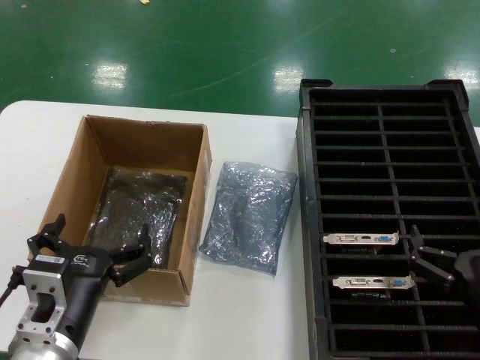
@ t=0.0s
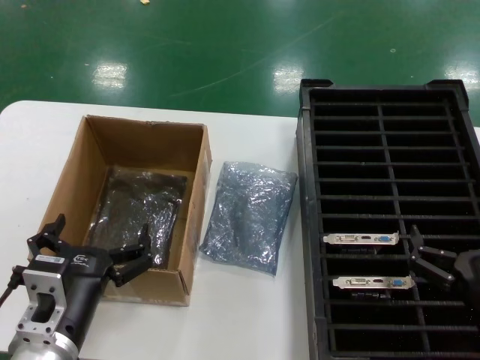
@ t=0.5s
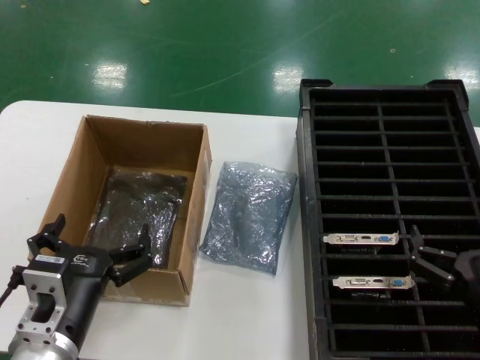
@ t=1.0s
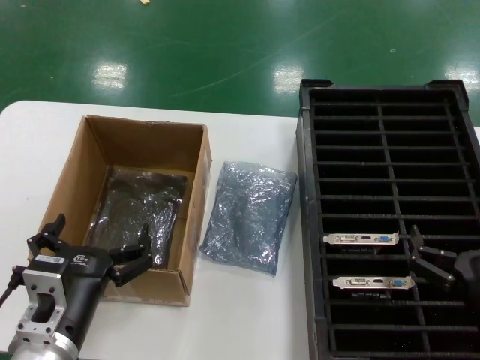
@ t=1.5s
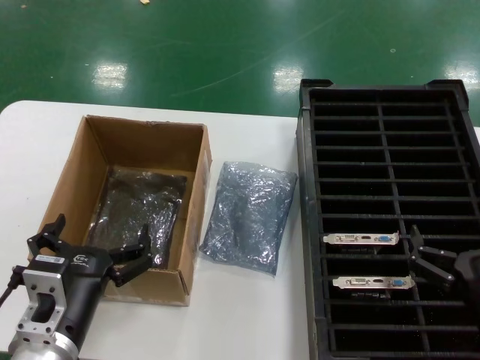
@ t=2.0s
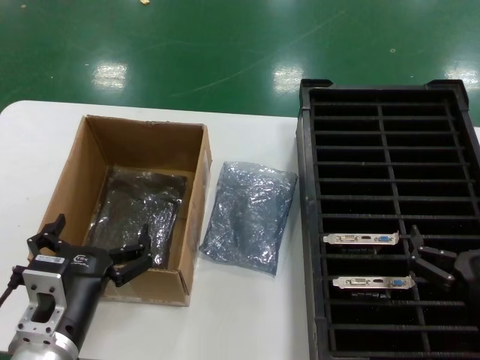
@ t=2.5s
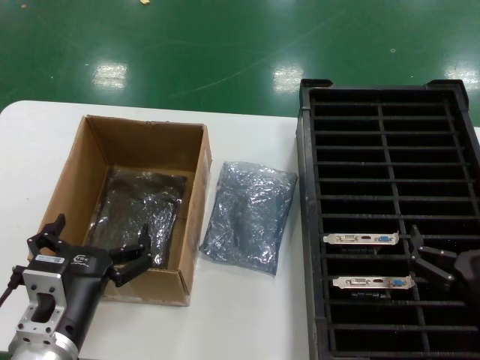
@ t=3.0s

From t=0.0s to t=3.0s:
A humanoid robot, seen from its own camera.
Task of the whole recording: take out graphics card from box remove packaging put into black container.
From t=0.0s to t=3.0s: The two hands keep their place.

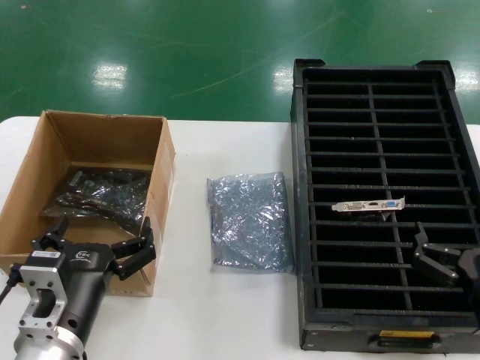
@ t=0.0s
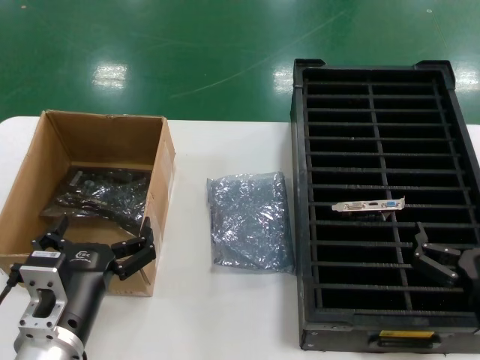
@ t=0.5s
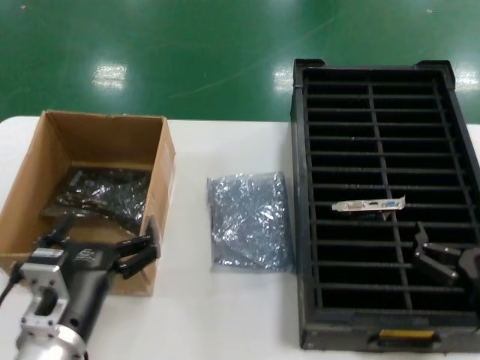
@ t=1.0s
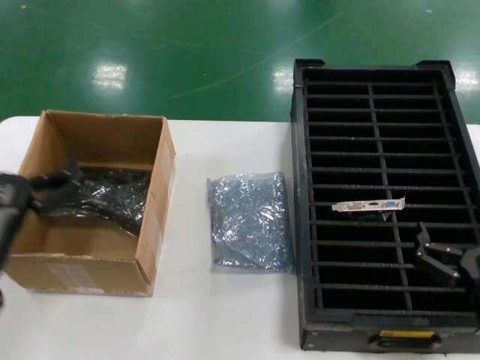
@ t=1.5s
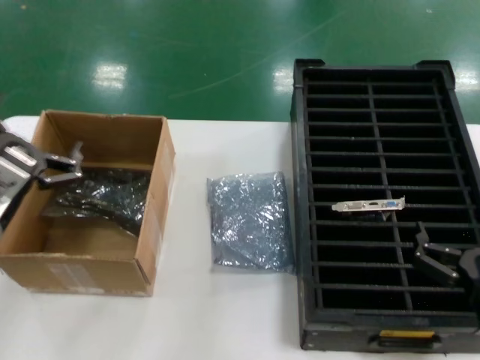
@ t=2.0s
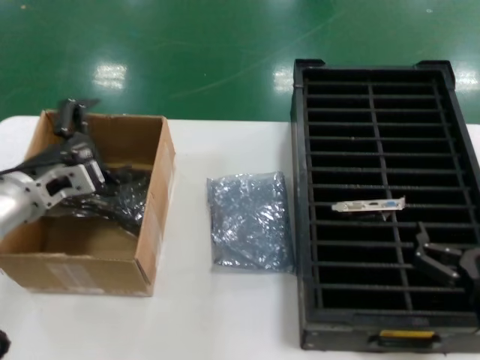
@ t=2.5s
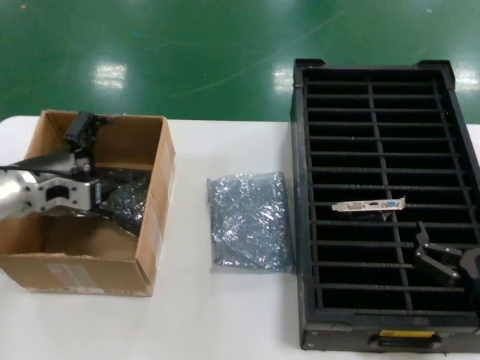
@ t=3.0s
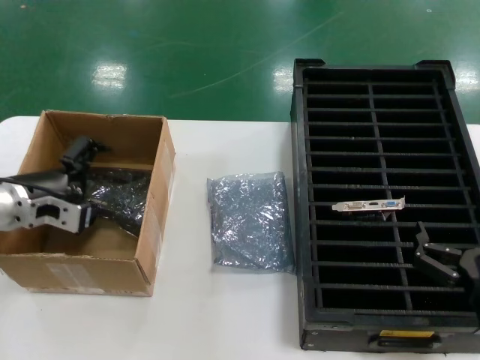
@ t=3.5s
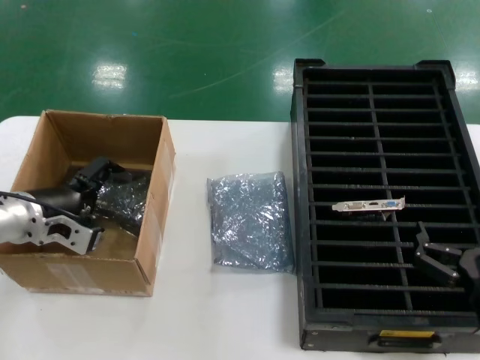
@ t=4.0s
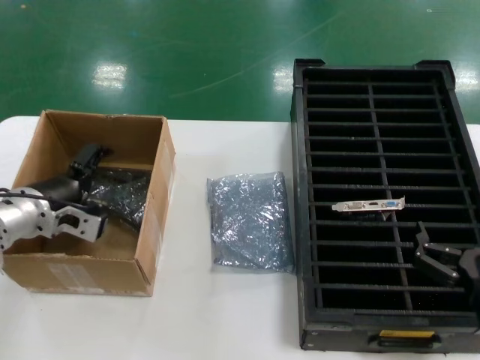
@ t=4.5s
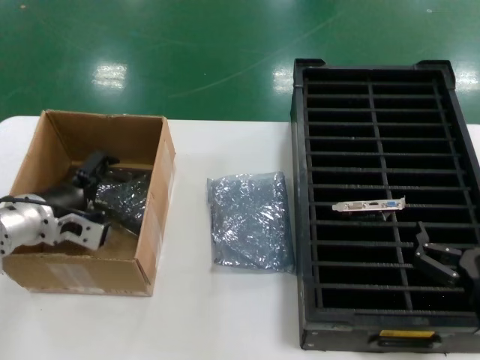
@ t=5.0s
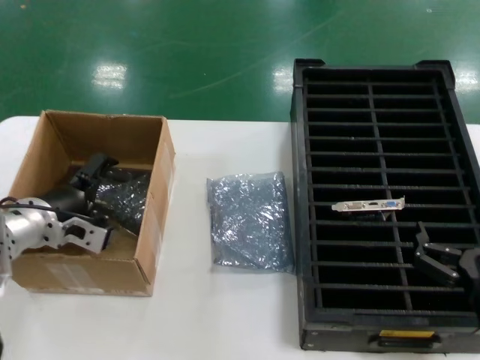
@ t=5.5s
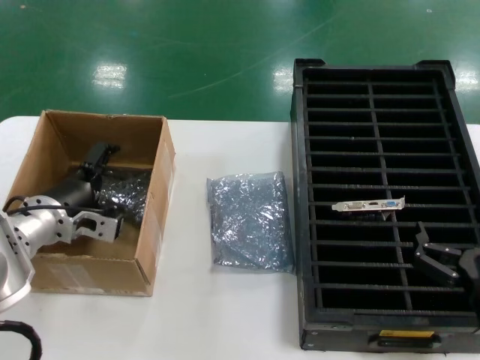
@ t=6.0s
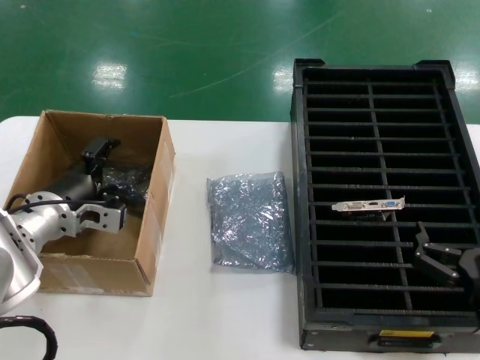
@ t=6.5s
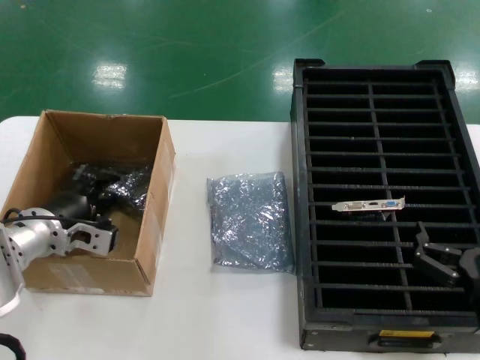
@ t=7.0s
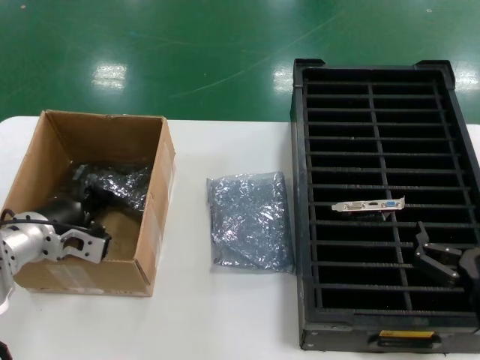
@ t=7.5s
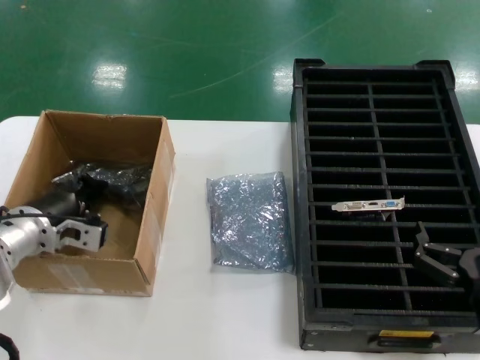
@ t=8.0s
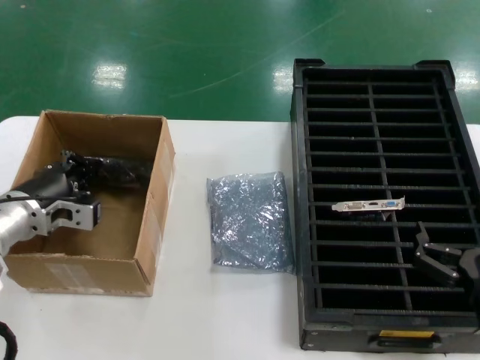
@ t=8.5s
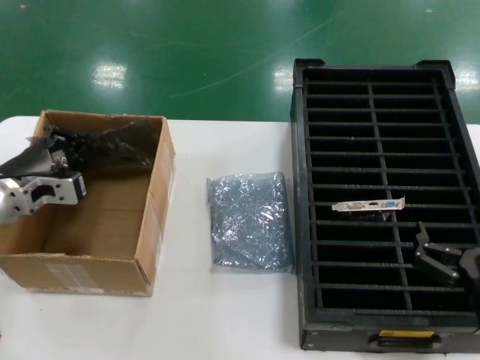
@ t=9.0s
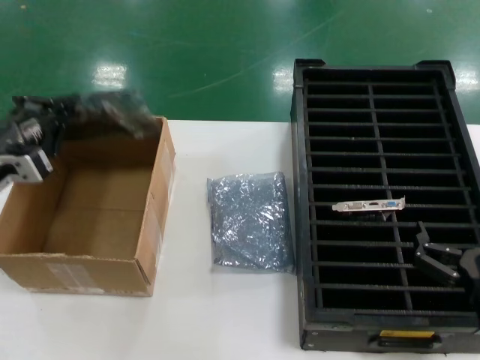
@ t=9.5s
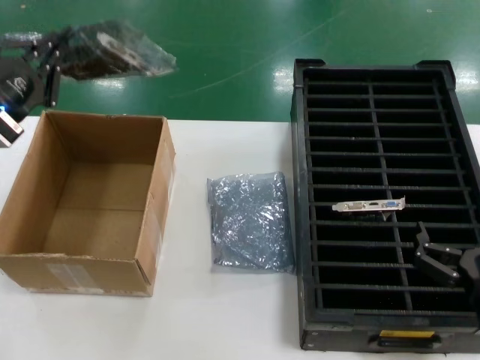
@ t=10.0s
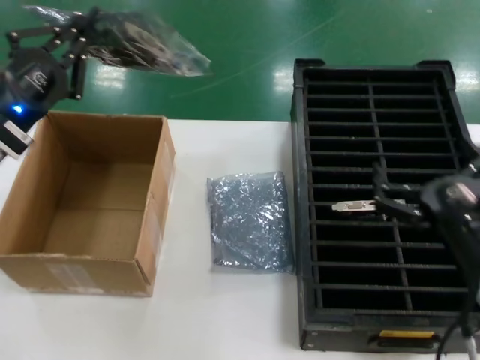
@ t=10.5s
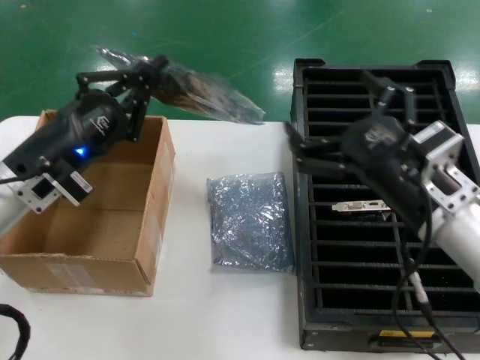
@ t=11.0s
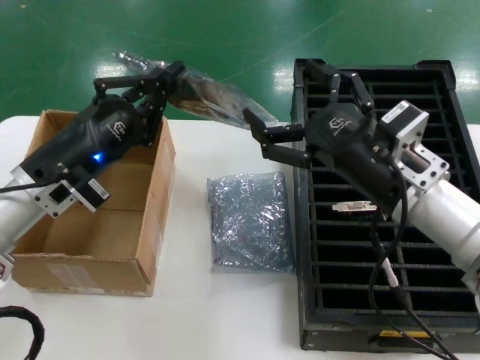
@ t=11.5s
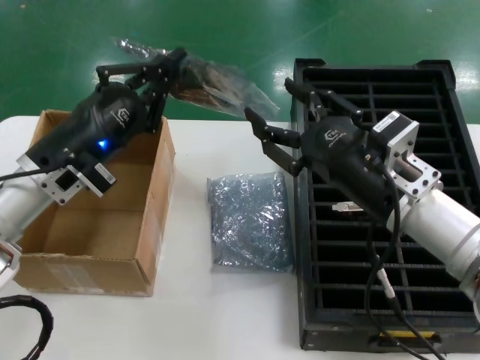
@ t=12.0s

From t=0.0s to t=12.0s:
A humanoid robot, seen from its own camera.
Task of the whole recording: take out graphics card from box remove packaging put into black container.
Step, from t=0.0s to t=8.0s: Grasp the bag.
Step, from t=8.5s to t=10.0s: Lift the bag.
From t=0.0s to t=2.0s: The left hand moves to the left, upward and forward, roughly 15 cm.
From t=2.0s to t=4.0s: The left hand heads forward, covering about 10 cm.
From t=4.0s to t=8.0s: The hands stay close to where they were, moving slightly.
From t=8.0s to t=10.0s: The left hand goes about 10 cm upward and to the left.
From t=10.0s to t=12.0s: The right hand shifts roughly 20 cm upward, forward and to the left. Meanwhile the left hand moves to the right, approximately 10 cm.

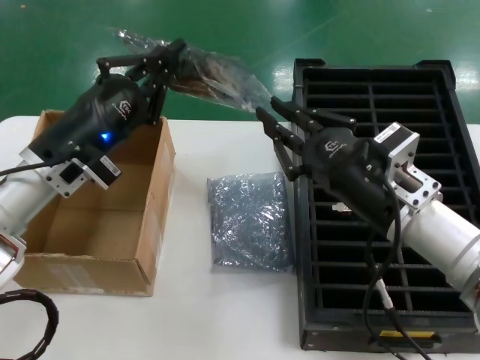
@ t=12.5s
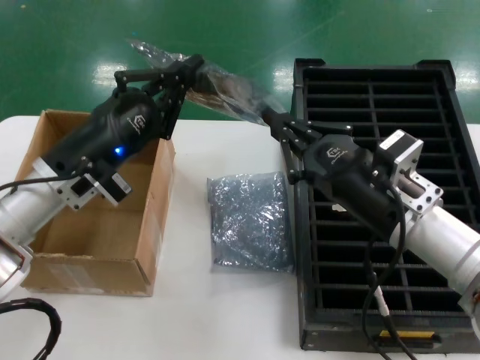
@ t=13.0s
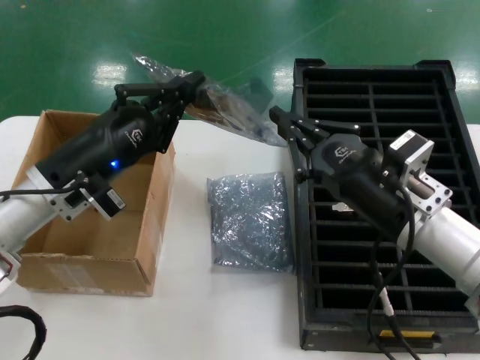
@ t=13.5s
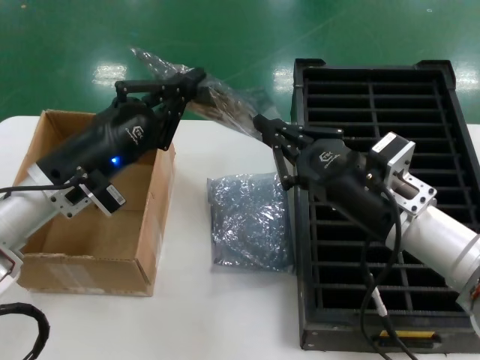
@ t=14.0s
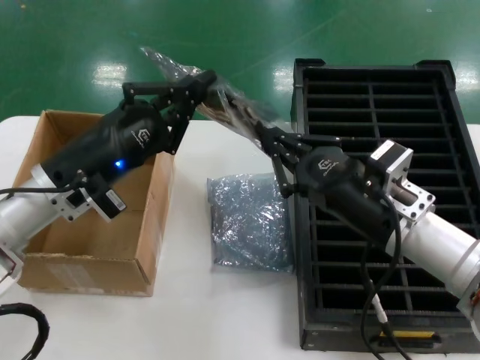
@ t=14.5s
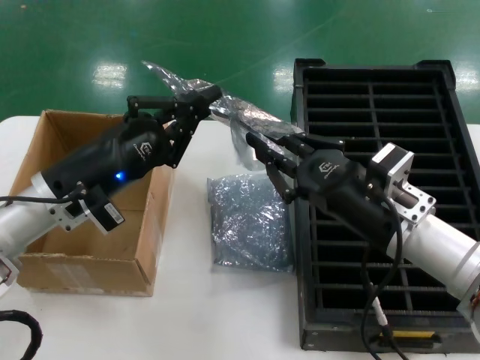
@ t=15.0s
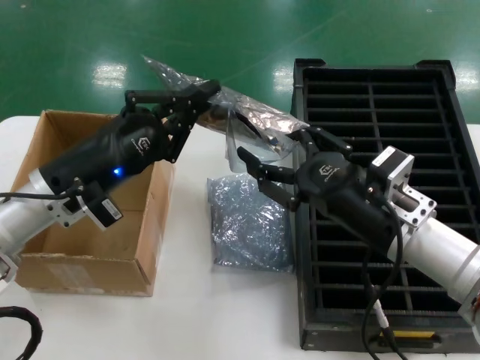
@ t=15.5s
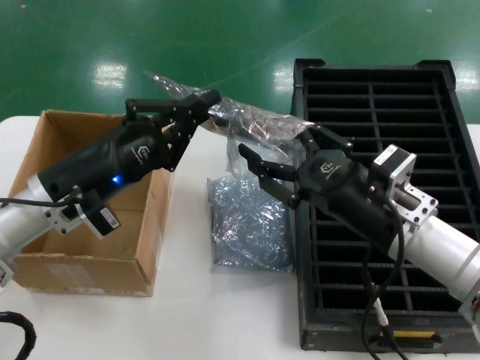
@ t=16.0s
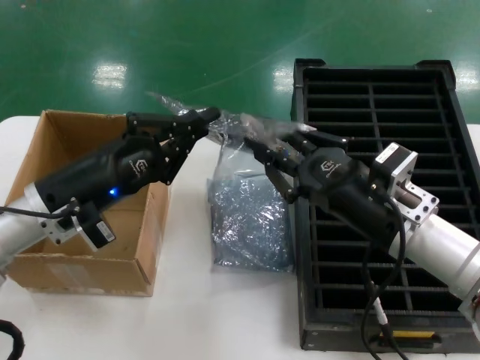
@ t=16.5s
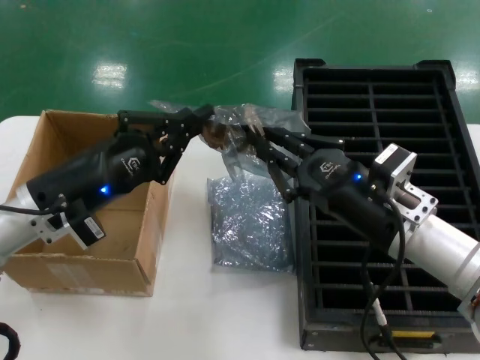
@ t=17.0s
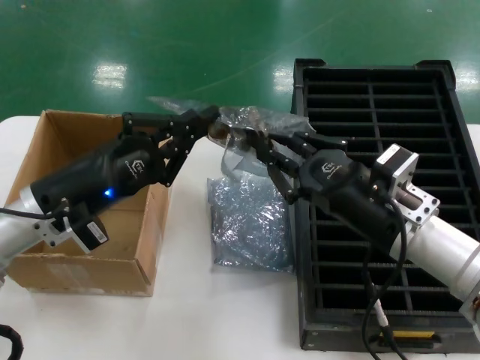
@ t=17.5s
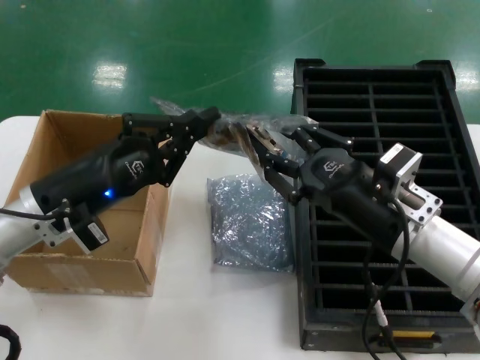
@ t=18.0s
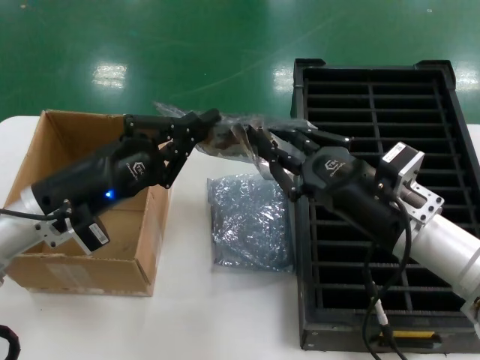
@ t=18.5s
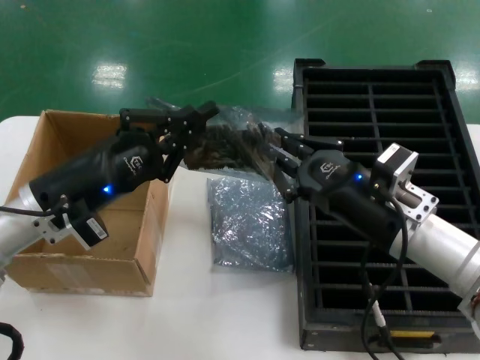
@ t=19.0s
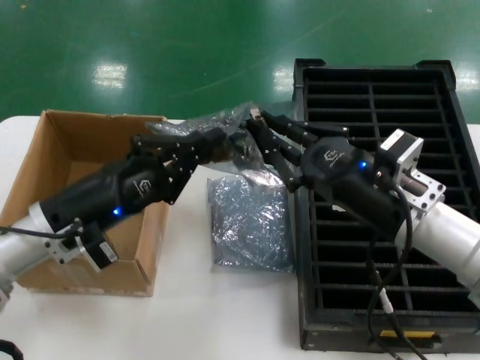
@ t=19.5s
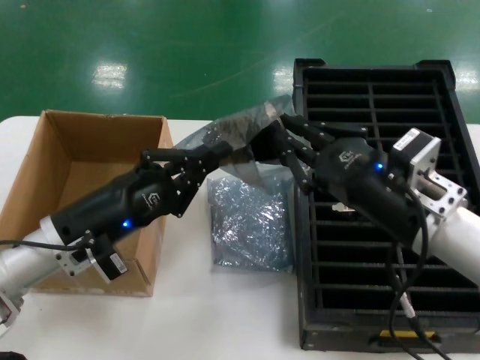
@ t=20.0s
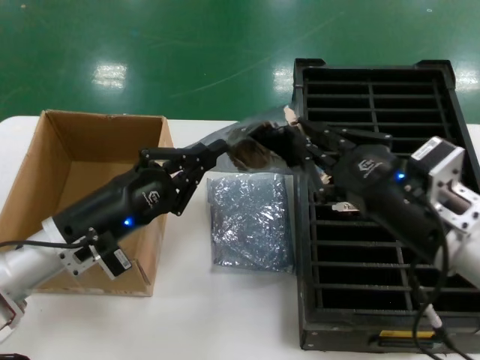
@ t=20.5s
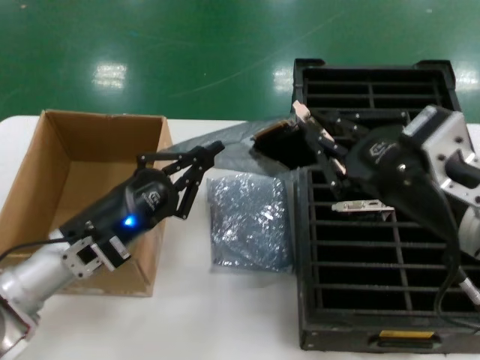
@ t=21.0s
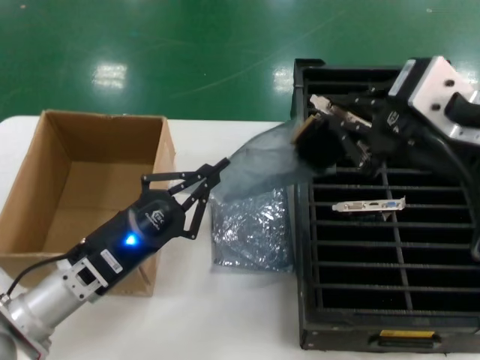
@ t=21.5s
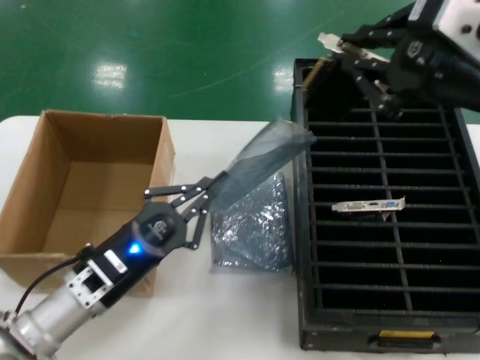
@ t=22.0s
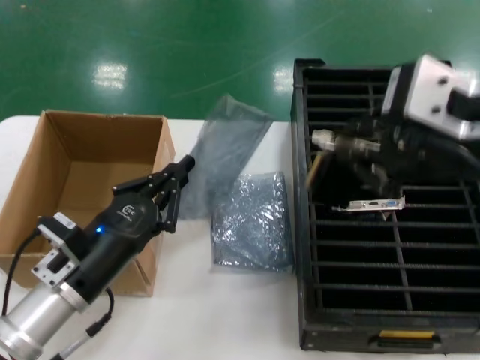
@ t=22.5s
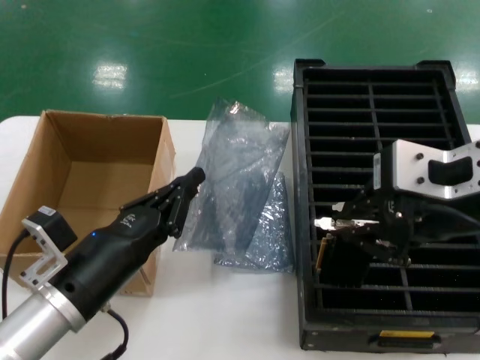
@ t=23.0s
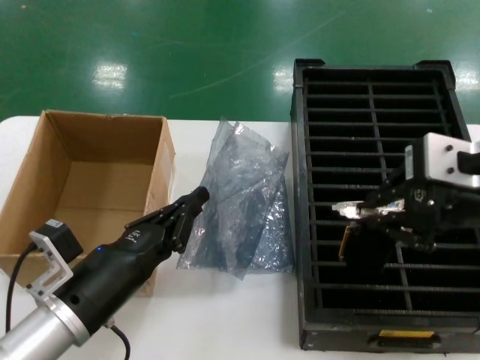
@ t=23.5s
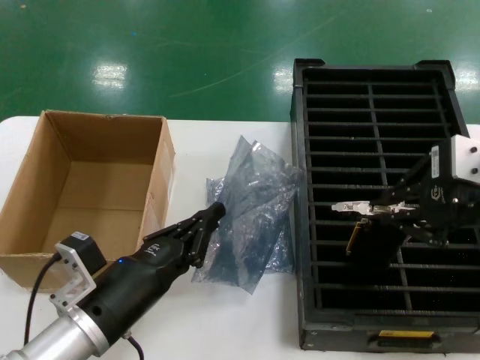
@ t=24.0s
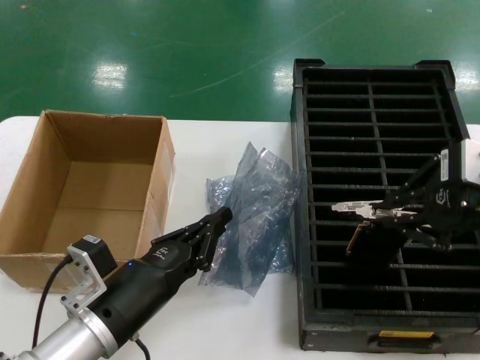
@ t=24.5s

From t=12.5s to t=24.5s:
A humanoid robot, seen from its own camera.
Task of the whole recording: take out graphics card from box remove packaging put into black container.
Step, from t=12.5s to t=21.5s: Take out the hard disk of the bag.
From t=14.5s to t=16.5s: The hands make only small movements.
From t=16.5s to t=18.5s: Both hands stay put.
From t=18.5s to t=20.5s: The right hand is displaced backward and upward by about 10 cm.
From t=20.5s to t=22.5s: The right hand is displaced upward by some 20 cm, while the left hand shifts roughly 5 cm backward.
From t=22.5s to t=24.5s: The left hand goes some 10 cm backward and to the right; the right hand goes roughly 15 cm to the right, forward and downward.
